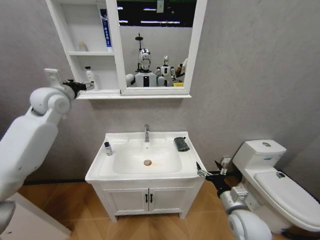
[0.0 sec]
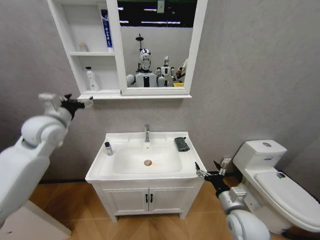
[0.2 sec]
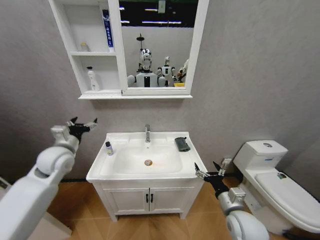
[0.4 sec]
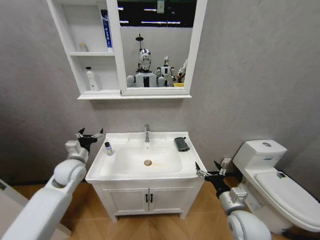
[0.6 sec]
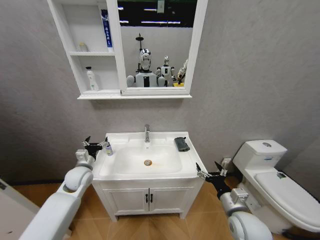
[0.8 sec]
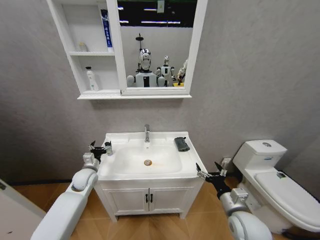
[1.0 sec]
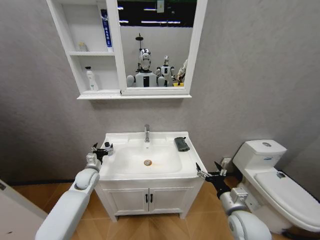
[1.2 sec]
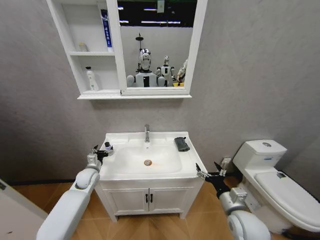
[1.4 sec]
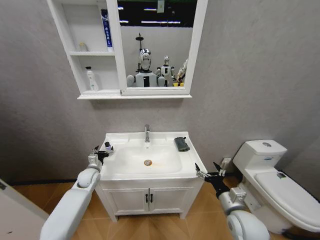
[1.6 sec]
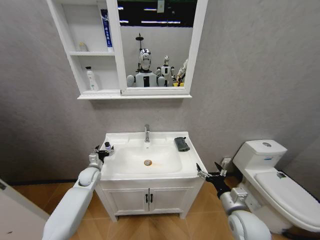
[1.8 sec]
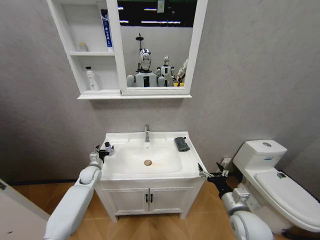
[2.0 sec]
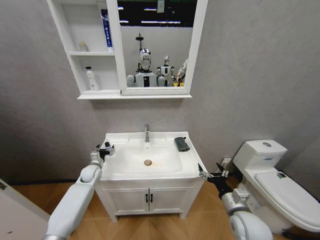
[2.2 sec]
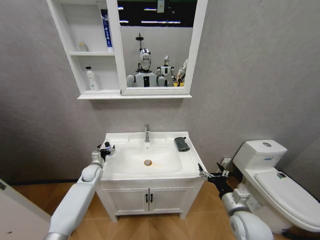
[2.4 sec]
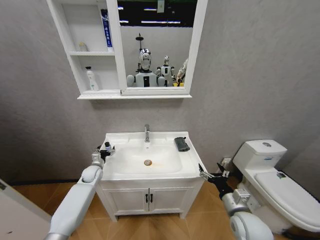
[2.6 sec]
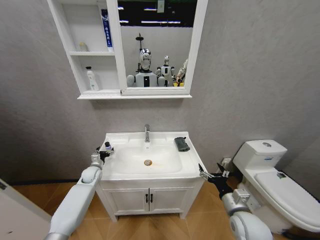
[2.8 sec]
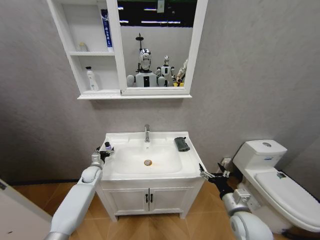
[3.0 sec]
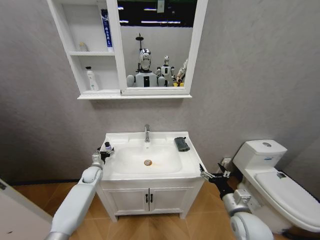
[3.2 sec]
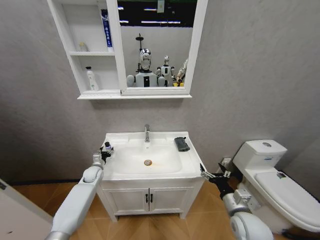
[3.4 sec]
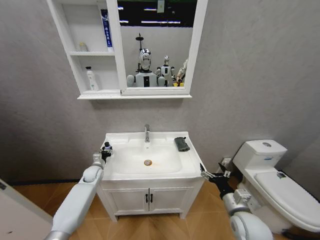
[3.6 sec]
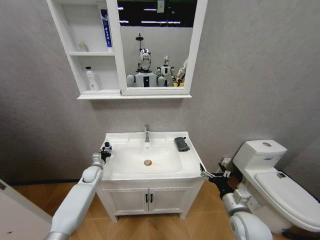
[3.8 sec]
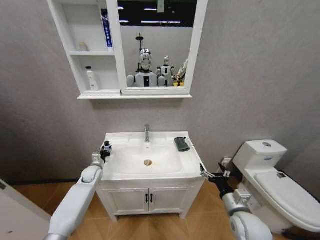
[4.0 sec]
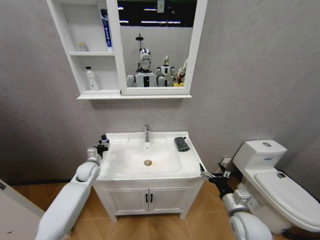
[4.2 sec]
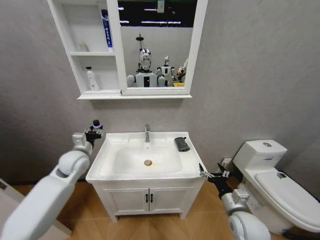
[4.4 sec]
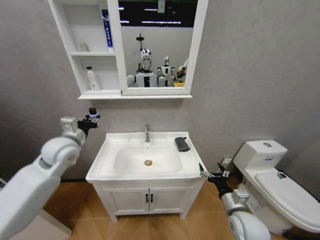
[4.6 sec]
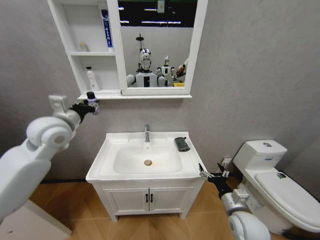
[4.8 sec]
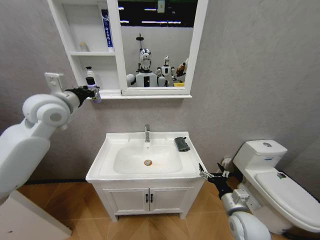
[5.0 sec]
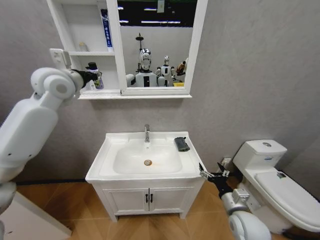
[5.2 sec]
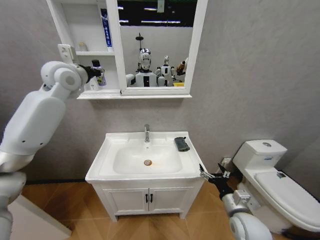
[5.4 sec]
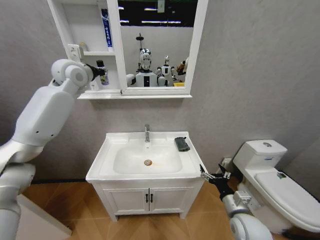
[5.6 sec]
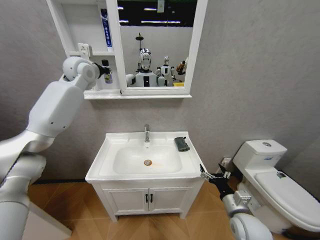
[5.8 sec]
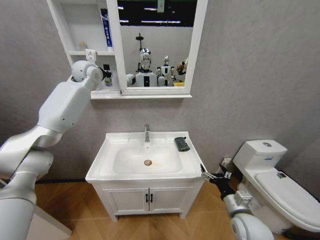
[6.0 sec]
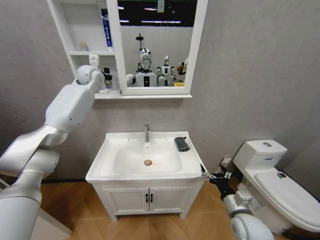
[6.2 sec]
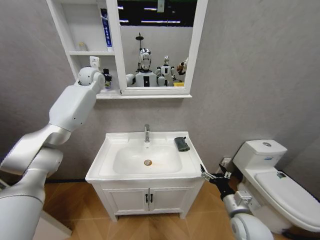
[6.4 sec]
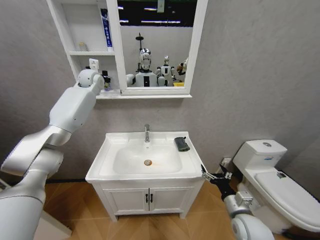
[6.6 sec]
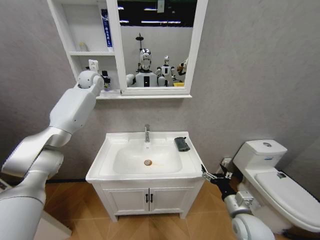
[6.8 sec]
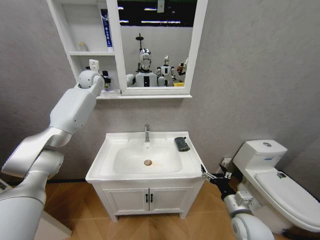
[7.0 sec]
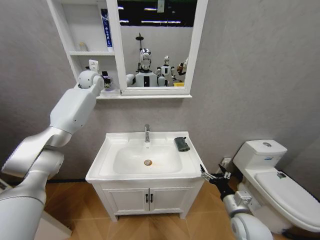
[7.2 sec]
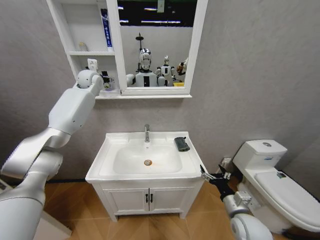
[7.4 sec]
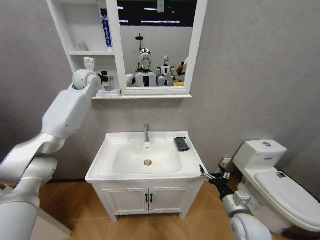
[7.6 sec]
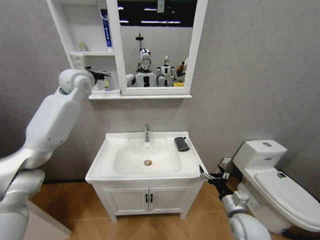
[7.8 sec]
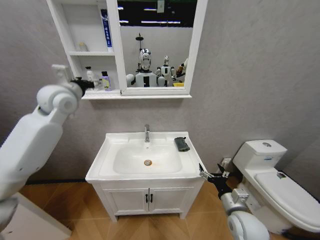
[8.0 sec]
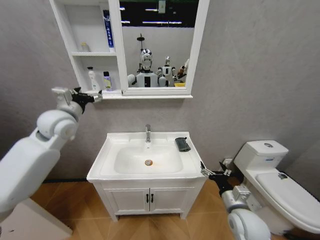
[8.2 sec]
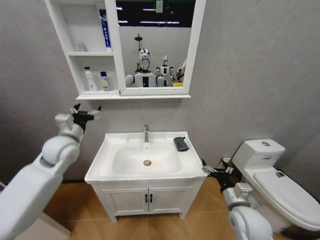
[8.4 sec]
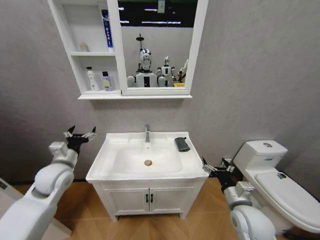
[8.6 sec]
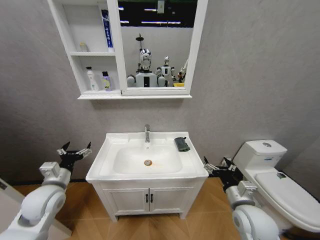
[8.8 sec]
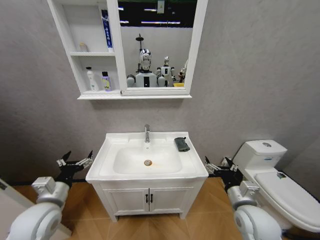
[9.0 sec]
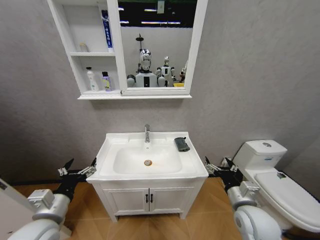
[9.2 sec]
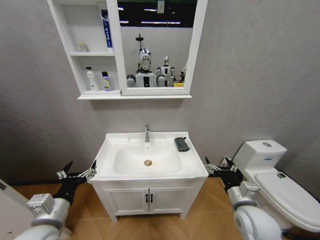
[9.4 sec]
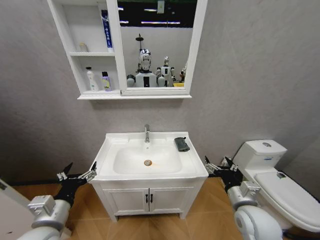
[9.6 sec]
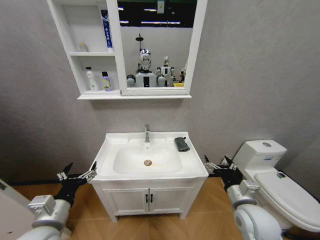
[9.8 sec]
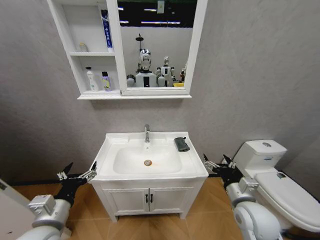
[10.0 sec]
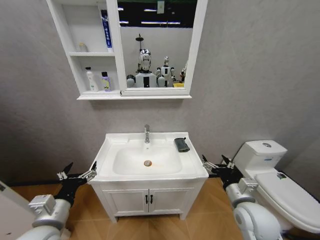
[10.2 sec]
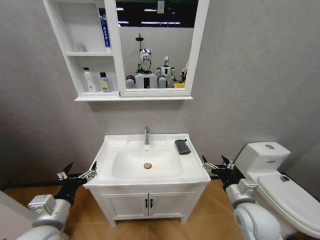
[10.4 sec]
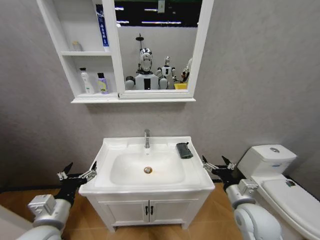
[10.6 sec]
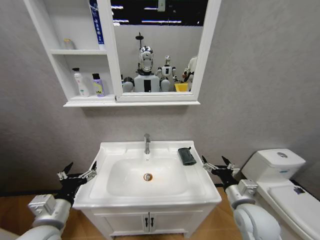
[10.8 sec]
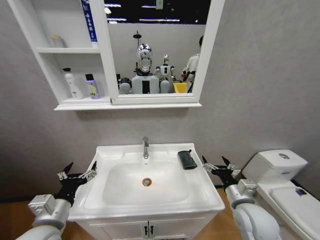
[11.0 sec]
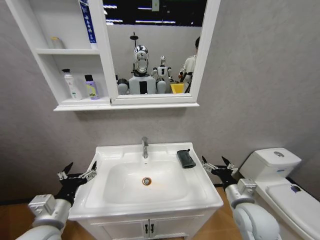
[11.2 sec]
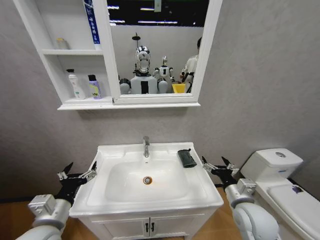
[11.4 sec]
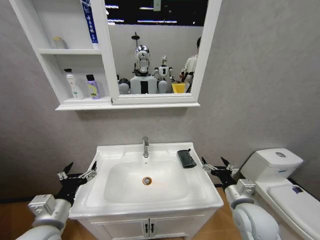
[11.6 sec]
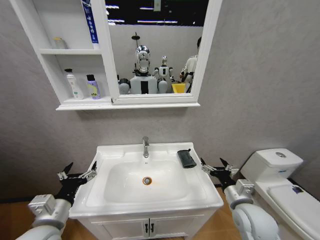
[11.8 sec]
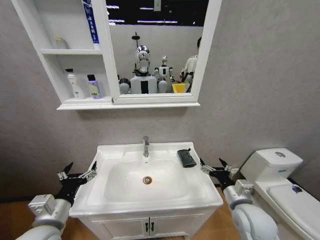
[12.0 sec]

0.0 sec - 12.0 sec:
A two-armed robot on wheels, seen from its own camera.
Task of the whole recording: Move facial cleanser and shampoo from washbasin to cabinet, then wipe washbasin with towel.
0.0 sec - 1.6 sec: The left gripper is displaced downward by some 40 cm.
1.6 sec - 3.0 sec: The grippers move only a little.
3.0 sec - 4.4 sec: The left gripper is displaced upward by roughly 20 cm, and closes.
4.4 sec - 6.0 sec: The left gripper shifts approximately 35 cm upward and forward.
6.0 sec - 7.6 sec: The left gripper opens its fingers.
7.6 sec - 9.0 sec: The left gripper goes about 50 cm backward and downward; the right gripper moves upward, roughly 5 cm.
9.0 sec - 10.4 sec: The left gripper goes about 5 cm backward.

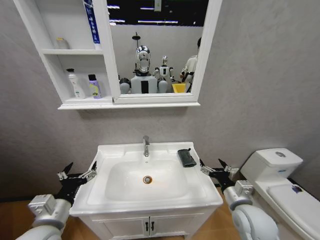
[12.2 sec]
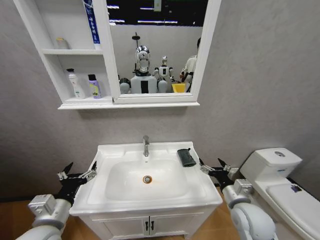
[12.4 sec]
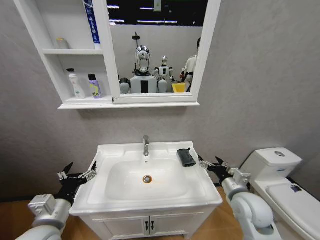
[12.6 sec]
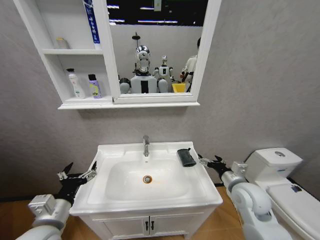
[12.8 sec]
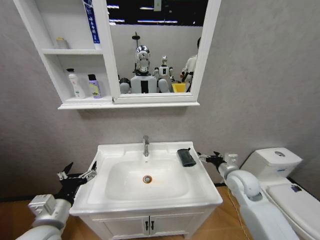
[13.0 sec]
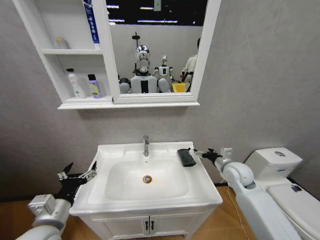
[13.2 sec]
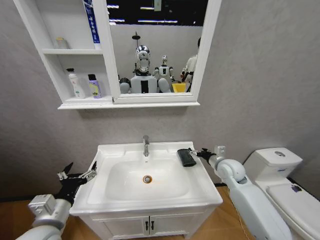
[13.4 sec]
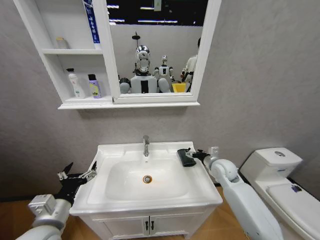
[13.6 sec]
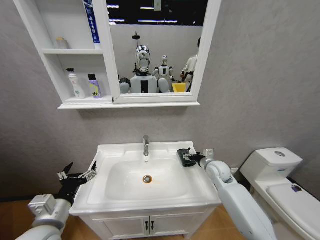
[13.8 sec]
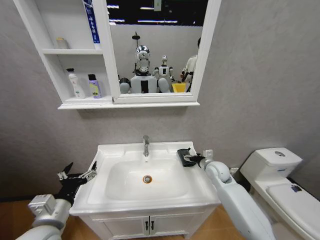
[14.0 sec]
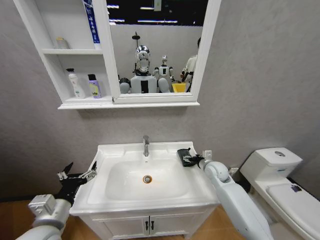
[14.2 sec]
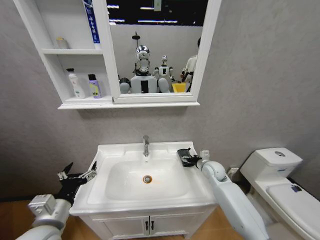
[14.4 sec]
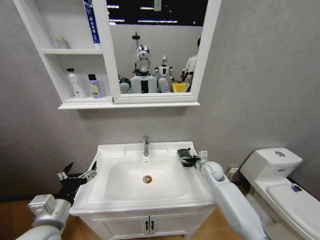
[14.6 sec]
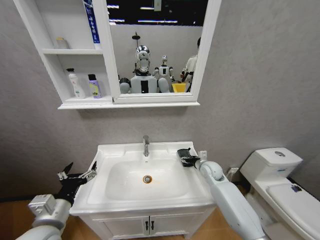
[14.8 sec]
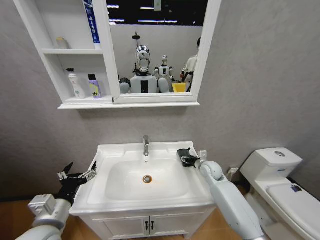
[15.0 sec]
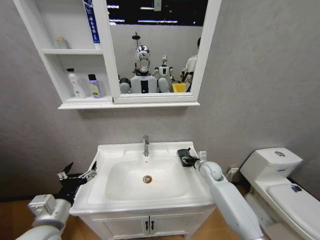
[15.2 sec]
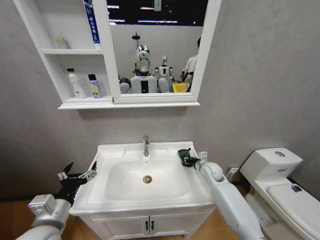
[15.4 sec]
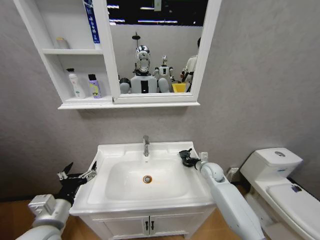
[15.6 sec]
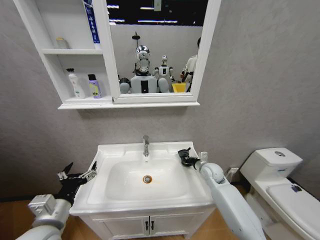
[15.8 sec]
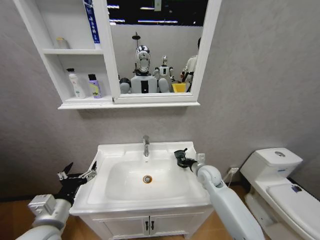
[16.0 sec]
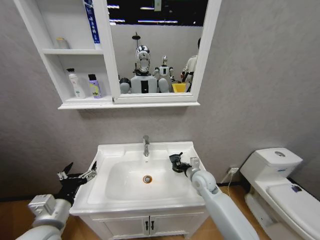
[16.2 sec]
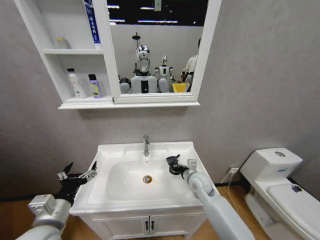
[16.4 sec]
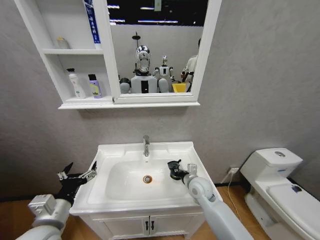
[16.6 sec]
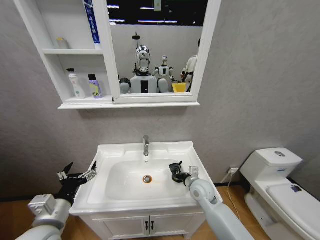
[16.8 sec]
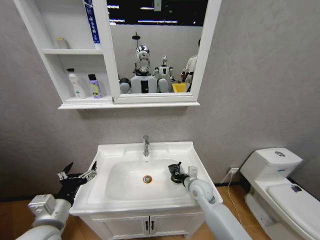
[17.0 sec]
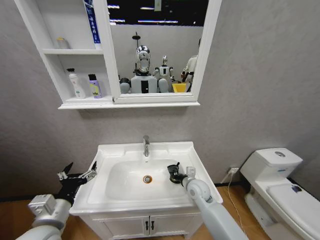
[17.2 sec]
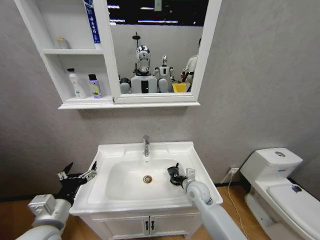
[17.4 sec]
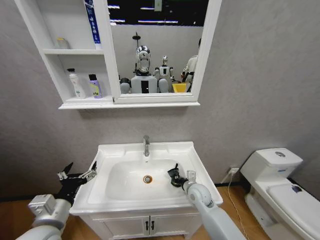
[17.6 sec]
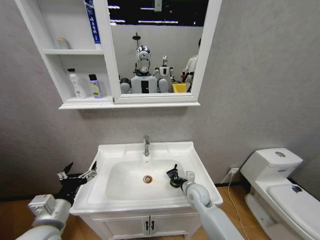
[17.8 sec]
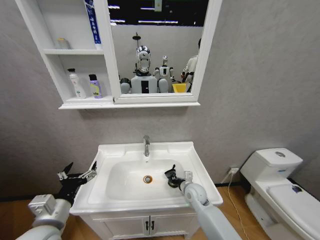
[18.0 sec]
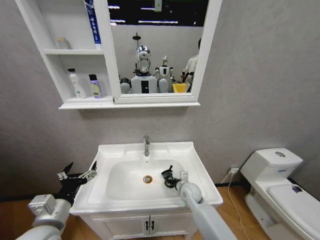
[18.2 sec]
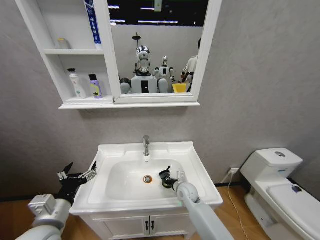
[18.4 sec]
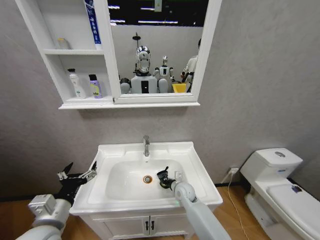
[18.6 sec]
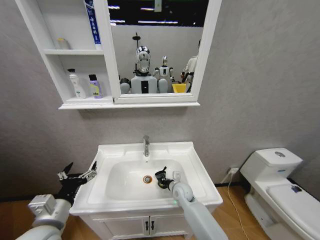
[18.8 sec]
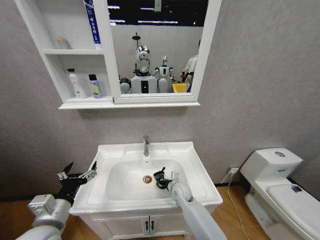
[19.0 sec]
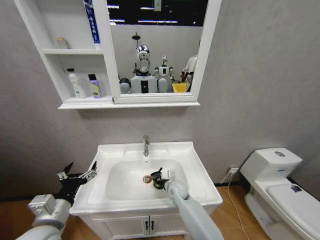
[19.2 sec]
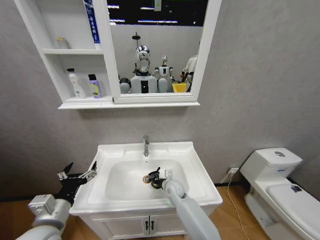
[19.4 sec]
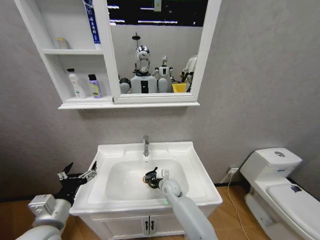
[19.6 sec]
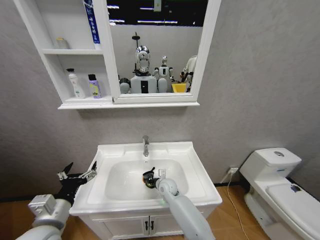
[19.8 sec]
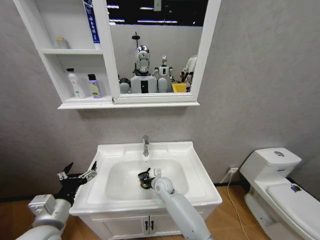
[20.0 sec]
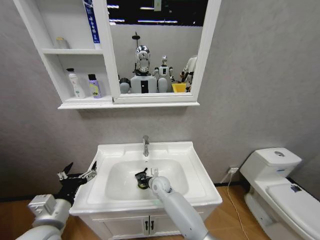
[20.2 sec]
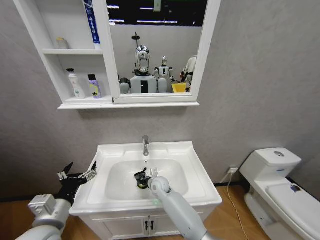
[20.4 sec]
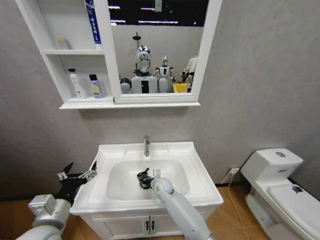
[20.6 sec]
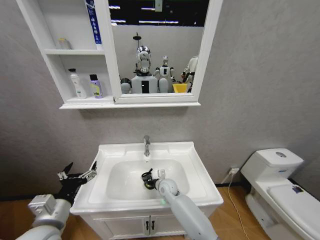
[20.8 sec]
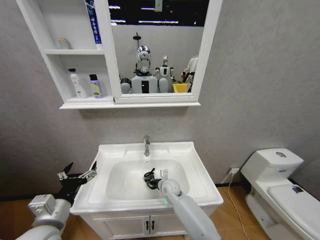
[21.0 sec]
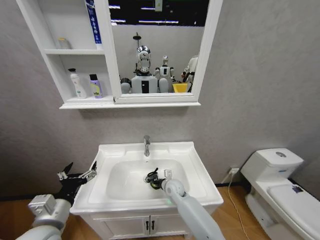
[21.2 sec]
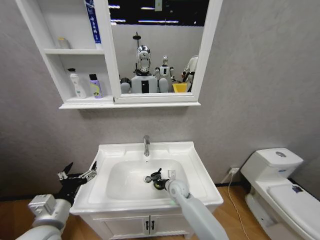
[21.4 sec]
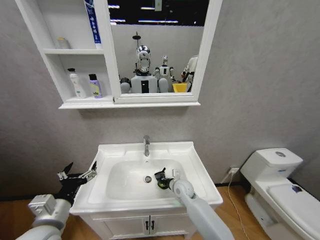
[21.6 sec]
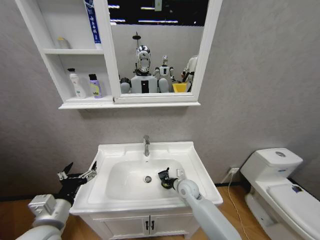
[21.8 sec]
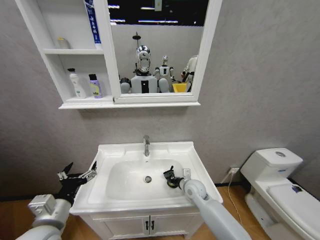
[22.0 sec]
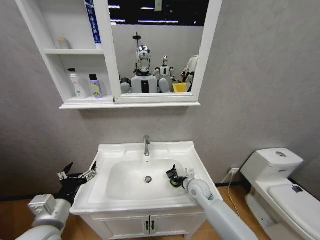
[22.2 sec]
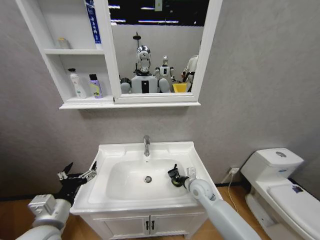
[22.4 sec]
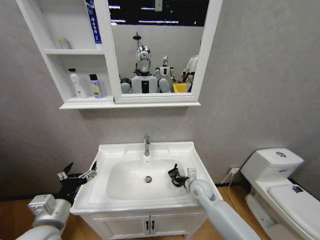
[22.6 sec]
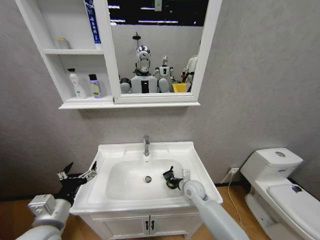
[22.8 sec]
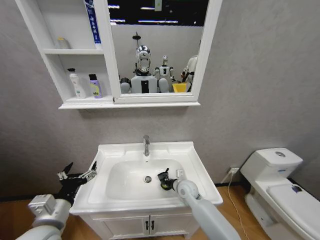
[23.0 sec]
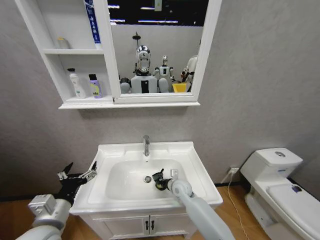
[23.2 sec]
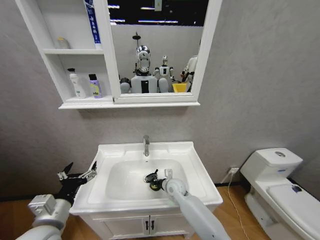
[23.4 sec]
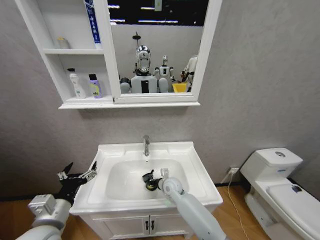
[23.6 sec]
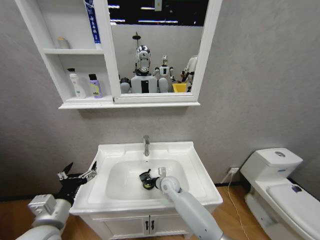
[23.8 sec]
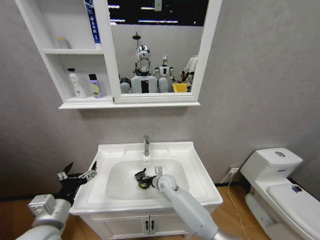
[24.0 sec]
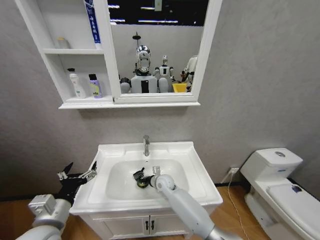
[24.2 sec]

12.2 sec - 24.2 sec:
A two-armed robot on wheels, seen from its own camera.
Task of the whole recording: Move facial cleanser and shampoo from washbasin to cabinet, then wipe washbasin with towel.
12.2 sec - 13.8 sec: The right gripper heads forward, covering some 20 cm.
13.8 sec - 15.2 sec: The right gripper closes.
15.2 sec - 16.6 sec: The right gripper travels to the left and backward by roughly 10 cm, and closes.
16.6 sec - 18.2 sec: The right gripper heads downward, covering some 5 cm.
18.2 sec - 19.8 sec: The right gripper travels to the left by about 10 cm.
19.8 sec - 21.2 sec: There are only small adjustments of the grippers.
21.2 sec - 22.6 sec: The right gripper is displaced to the right and upward by about 10 cm.
22.6 sec - 24.2 sec: The right gripper is displaced to the left by roughly 15 cm.
